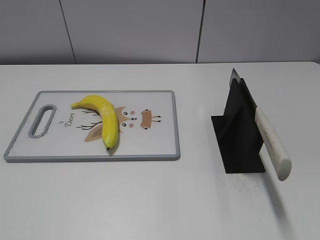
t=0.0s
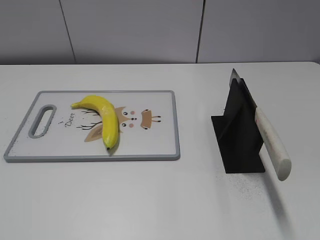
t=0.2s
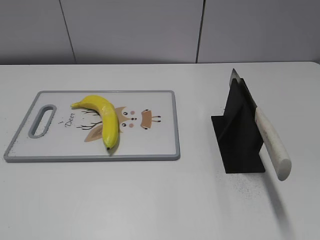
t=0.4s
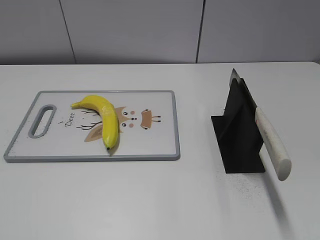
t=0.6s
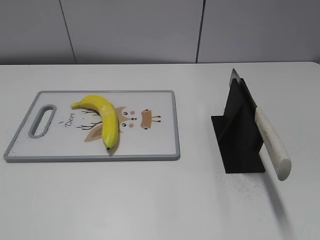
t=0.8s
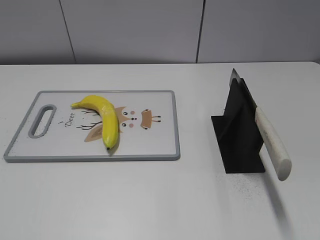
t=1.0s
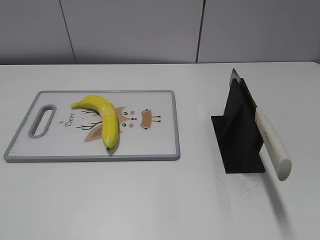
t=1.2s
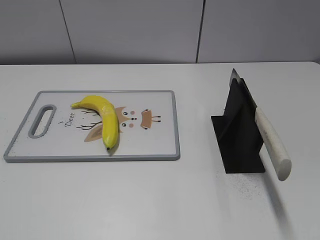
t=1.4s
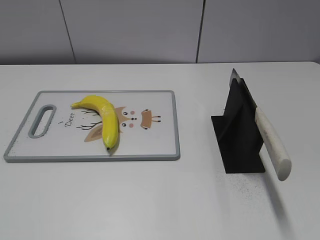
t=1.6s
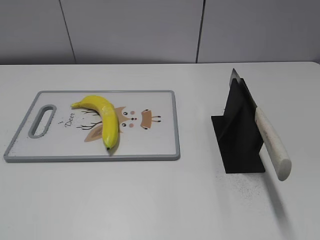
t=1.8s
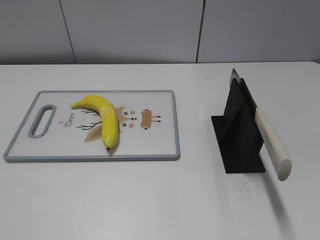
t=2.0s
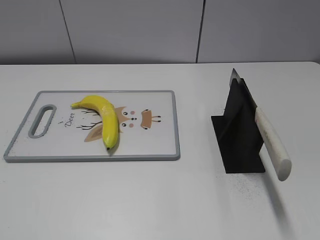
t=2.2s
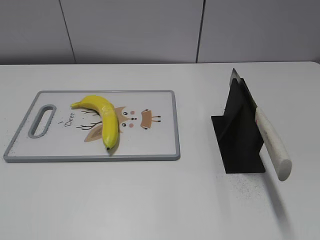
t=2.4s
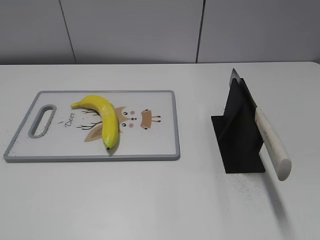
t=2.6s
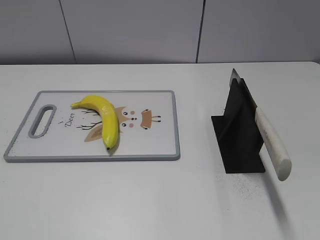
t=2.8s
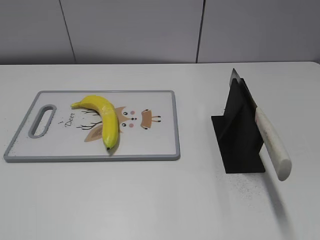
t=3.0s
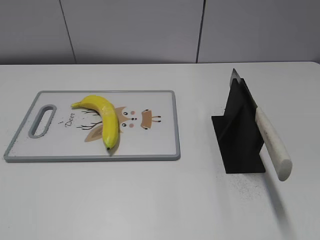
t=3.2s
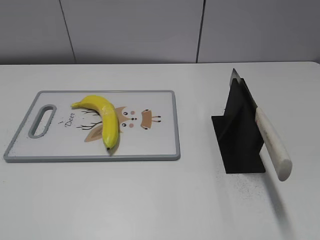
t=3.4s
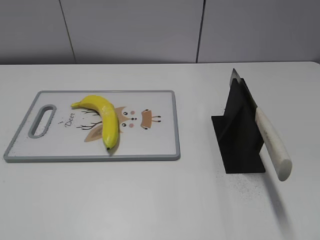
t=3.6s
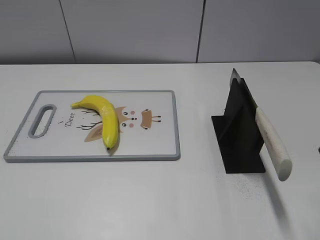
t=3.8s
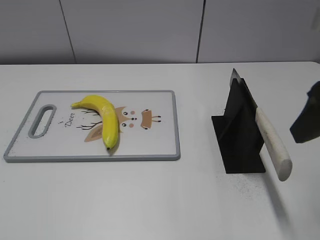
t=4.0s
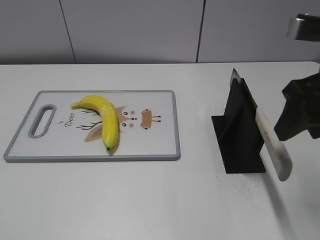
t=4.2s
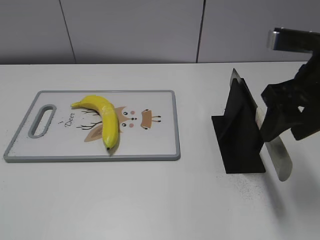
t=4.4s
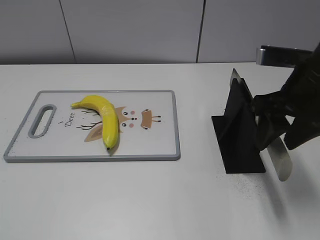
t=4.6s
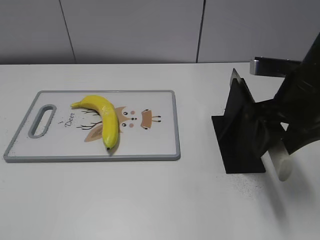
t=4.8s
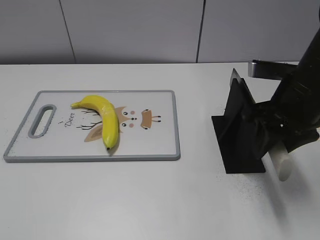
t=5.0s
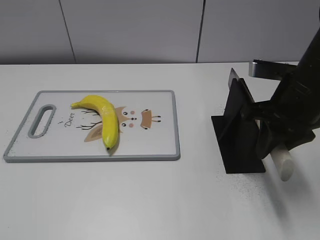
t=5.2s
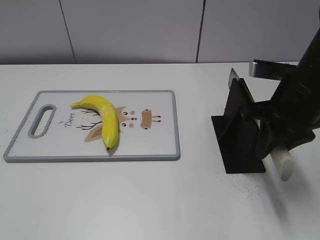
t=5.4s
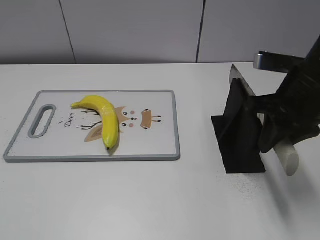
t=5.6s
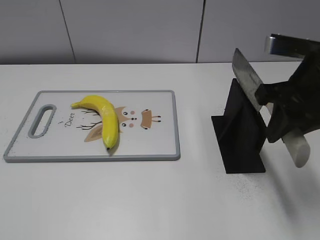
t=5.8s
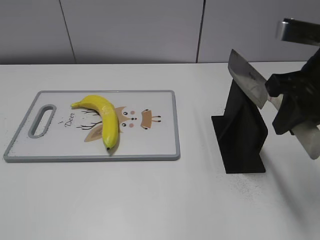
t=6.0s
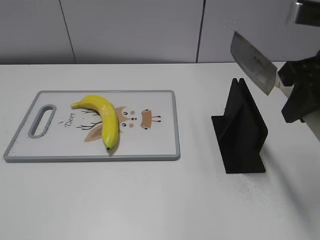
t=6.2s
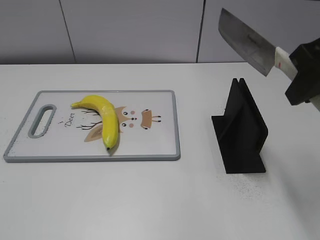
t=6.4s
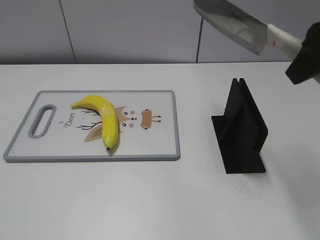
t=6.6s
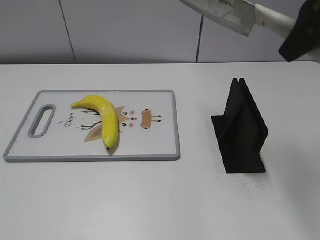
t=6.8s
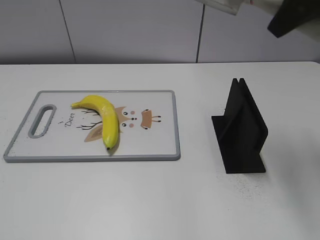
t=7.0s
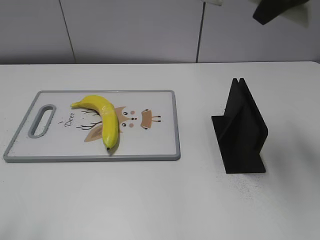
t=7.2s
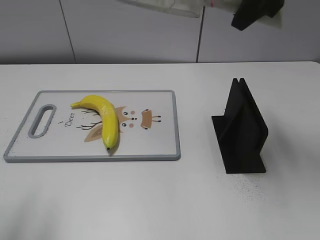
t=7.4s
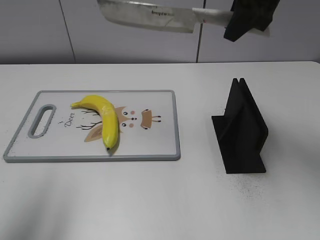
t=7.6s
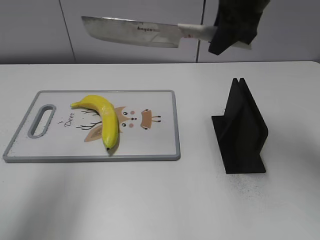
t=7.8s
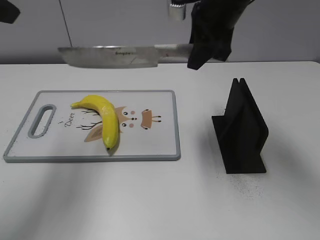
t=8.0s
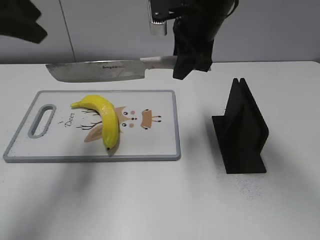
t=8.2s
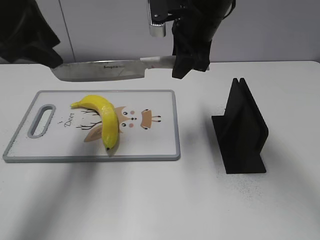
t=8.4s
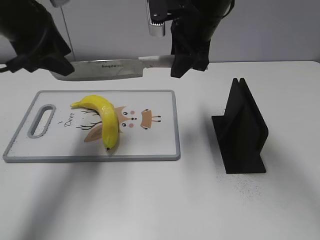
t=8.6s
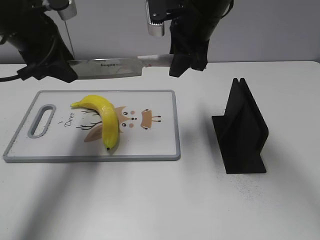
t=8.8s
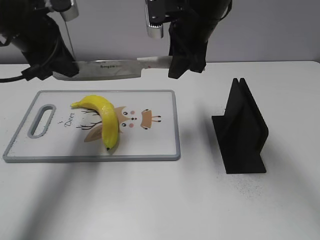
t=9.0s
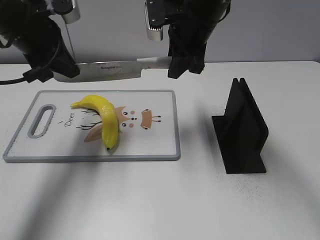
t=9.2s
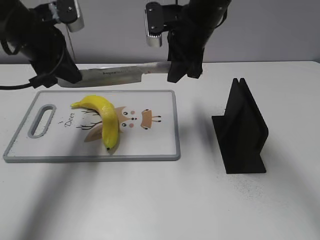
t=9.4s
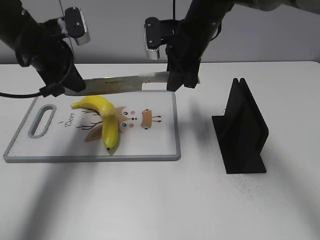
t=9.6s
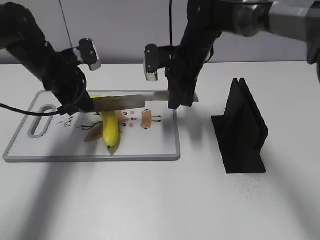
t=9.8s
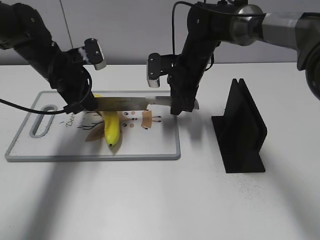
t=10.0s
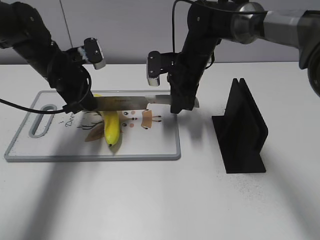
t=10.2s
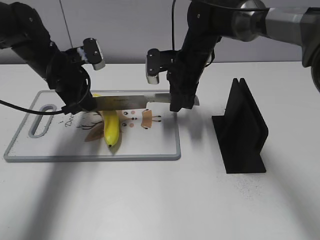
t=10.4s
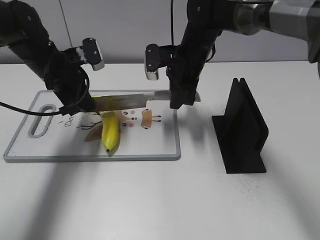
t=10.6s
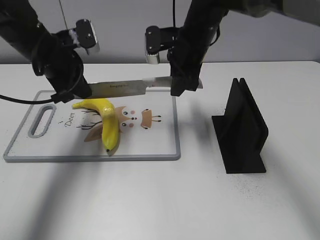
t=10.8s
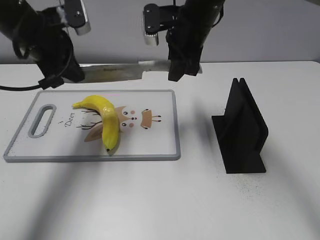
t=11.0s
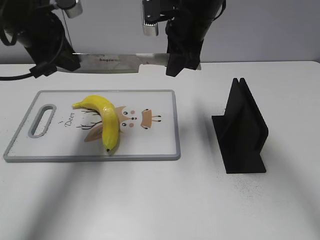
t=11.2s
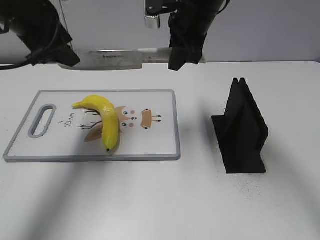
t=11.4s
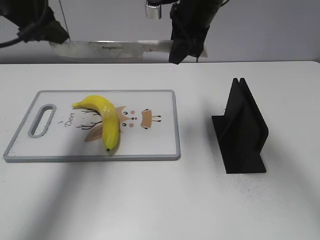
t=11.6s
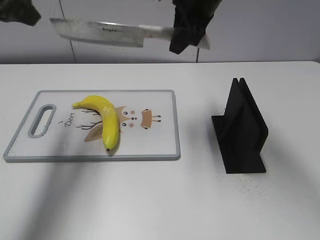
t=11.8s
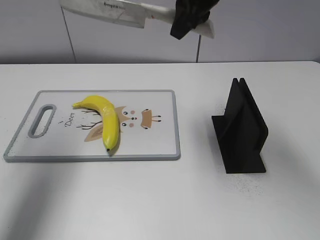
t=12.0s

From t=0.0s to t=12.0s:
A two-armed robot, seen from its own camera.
Task of the whole recording: cut plastic banana.
Step, from t=0.0s to t=6.2s: Grab the knife handle with your right hand.
Step, from t=6.4s to t=11.2s: Lift the knife with your right hand.
From t=3.0s to t=4.4s: The right gripper is displaced forward and to the left by about 25 cm.
From t=4.4s to t=6.0s: The right gripper closes up.
From t=6.0s to t=7.6s: Both grippers travel together forward and upward, approximately 20 cm.
From t=7.6s to t=9.0s: The right gripper shifts about 10 cm to the left and downward. The left gripper shifts roughly 25 cm forward, downward and to the right, and closes up.
From t=9.0s to t=10.4s: Both grippers travel together downward, some 10 cm.
From t=10.4s to t=12.0s: The left gripper shifts approximately 25 cm upward, backward and to the left, and opens up. Meanwhile the right gripper travels upward by approximately 20 cm.

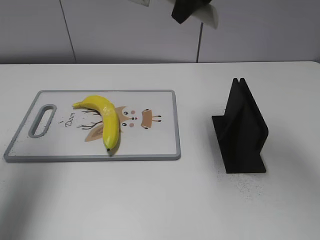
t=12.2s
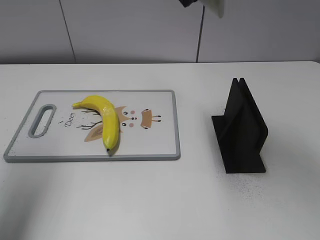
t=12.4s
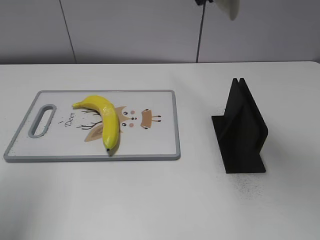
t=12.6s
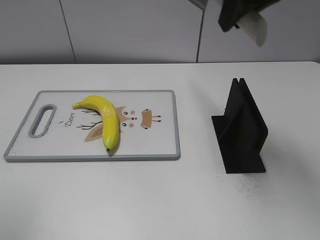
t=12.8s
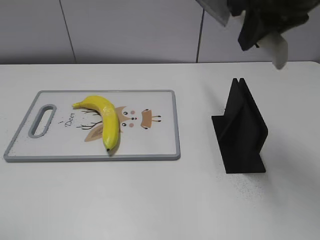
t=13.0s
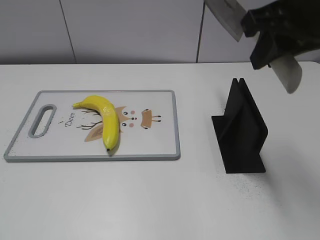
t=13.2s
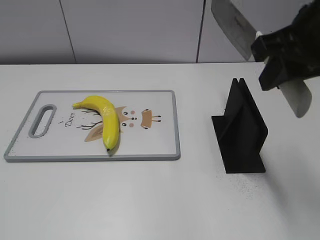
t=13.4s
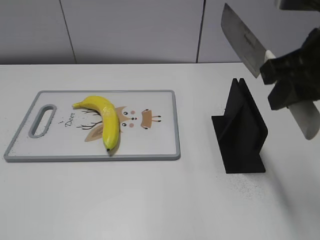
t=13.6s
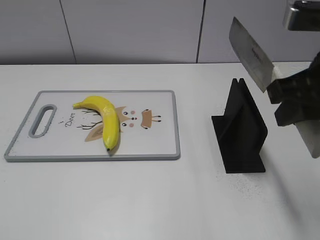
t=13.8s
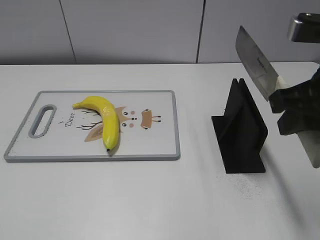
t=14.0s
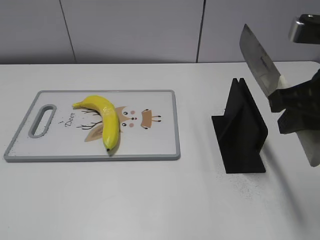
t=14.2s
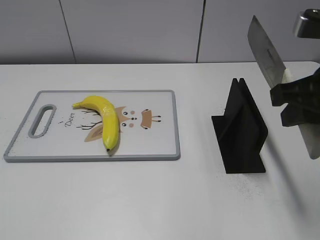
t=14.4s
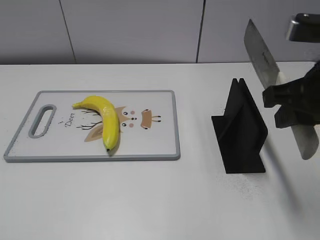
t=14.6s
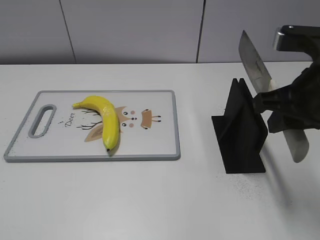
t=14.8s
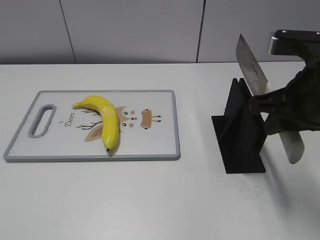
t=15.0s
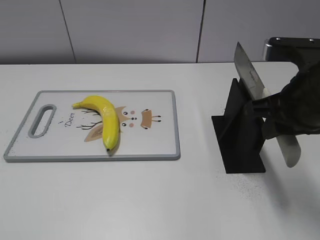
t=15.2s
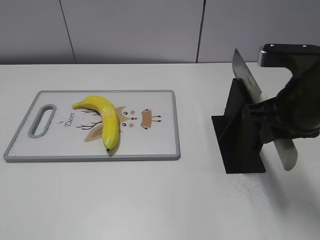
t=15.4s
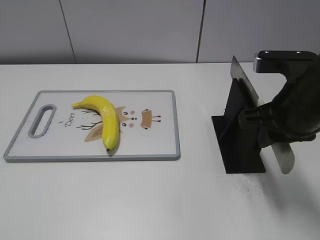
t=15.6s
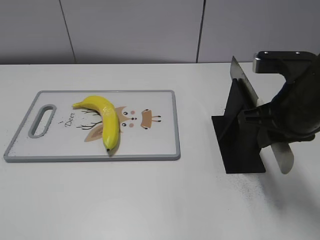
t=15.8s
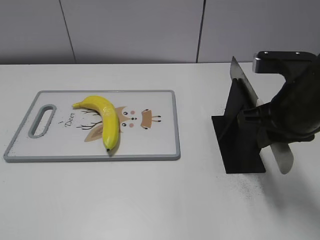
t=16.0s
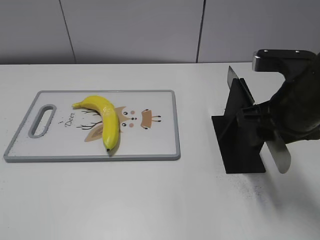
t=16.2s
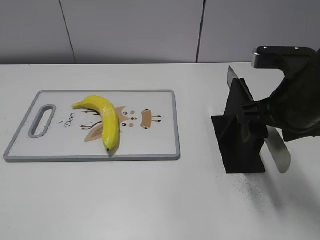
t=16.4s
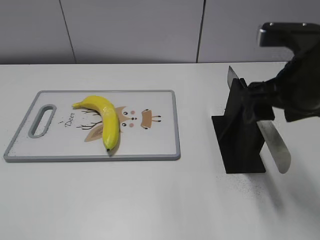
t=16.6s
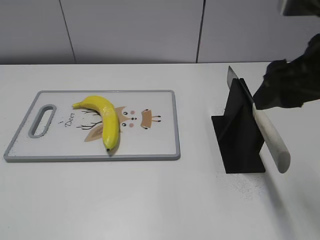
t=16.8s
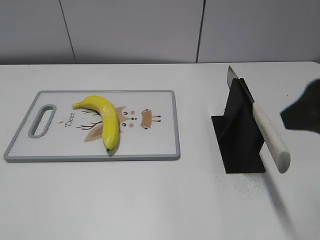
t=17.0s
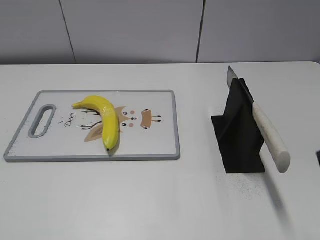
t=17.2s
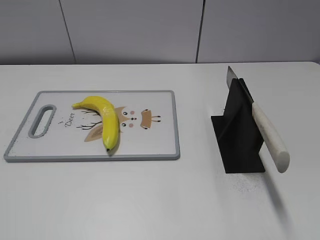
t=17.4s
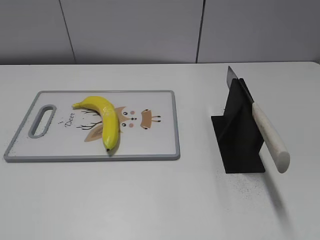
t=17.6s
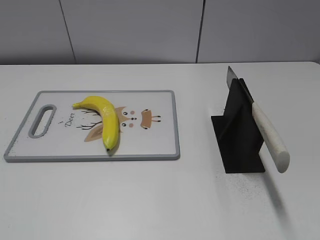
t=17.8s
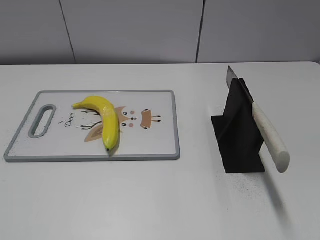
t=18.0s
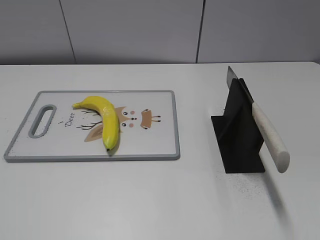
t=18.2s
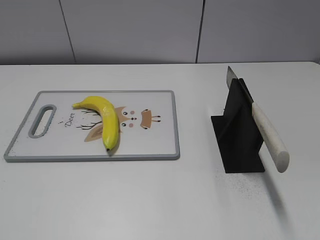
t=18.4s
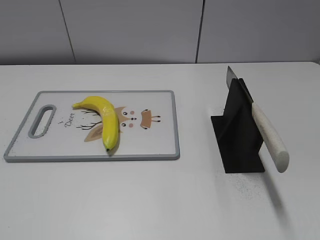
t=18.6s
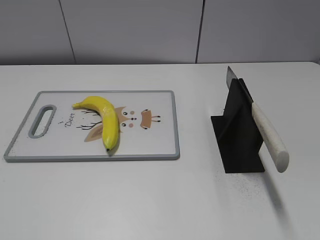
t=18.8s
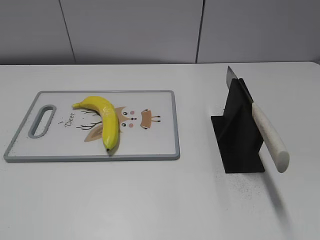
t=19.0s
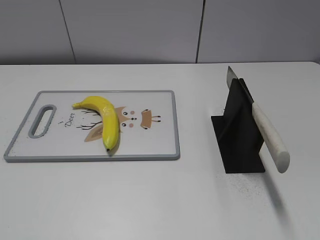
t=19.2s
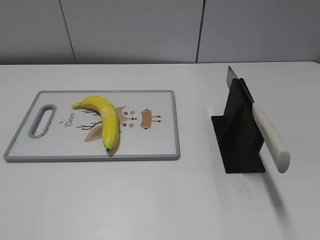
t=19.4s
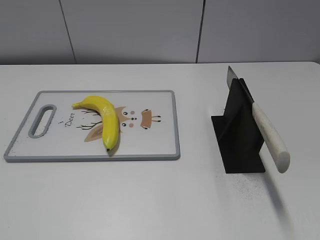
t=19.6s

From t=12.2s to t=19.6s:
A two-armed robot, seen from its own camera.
Task of the whole recording: cut plastic banana.
Step, from t=13.0s to t=13.8s: Secure the blade with your left hand.
Step, from t=14.0s to t=19.6s: Place the knife on the storage rack with your right hand.
From t=12.2s to t=13.6s: The right gripper shifts roughly 20 cm backward and to the right. Meanwhile the left gripper shifts approximately 30 cm backward.
From t=13.6s to t=15.2s: The right gripper heads downward, covering approximately 5 cm.
From t=15.2s to t=16.6s: The right gripper opens its fingers.
From t=16.6s to t=18.2s: The right gripper shifts approximately 30 cm backward and to the right.

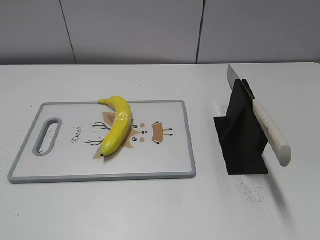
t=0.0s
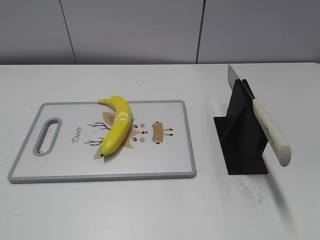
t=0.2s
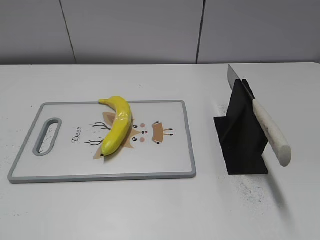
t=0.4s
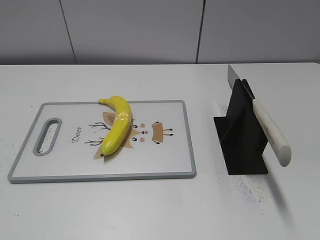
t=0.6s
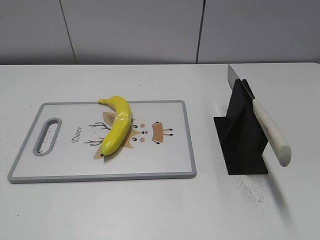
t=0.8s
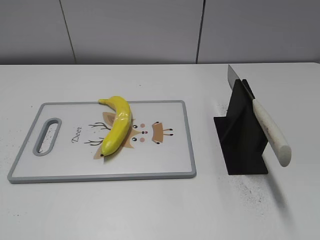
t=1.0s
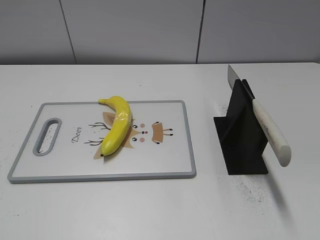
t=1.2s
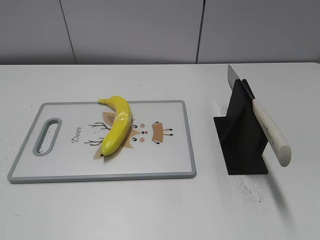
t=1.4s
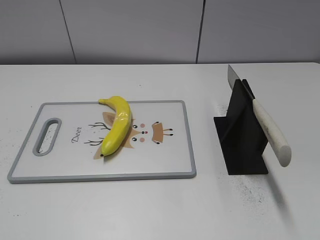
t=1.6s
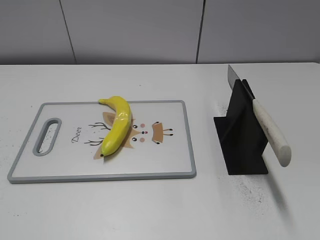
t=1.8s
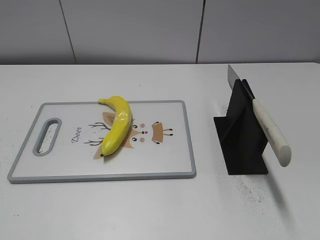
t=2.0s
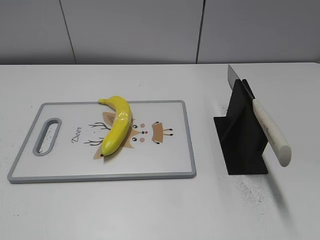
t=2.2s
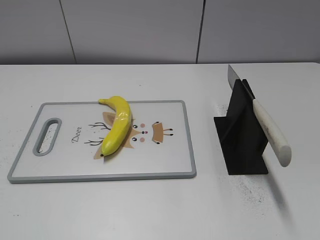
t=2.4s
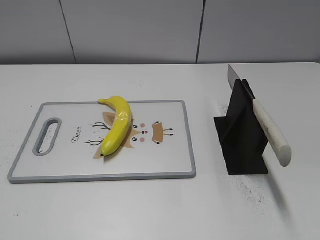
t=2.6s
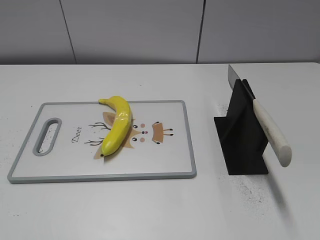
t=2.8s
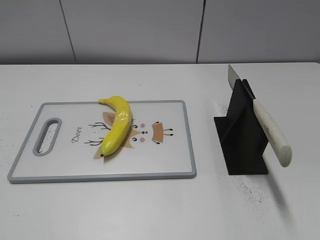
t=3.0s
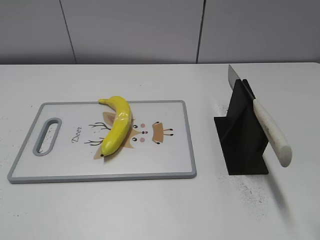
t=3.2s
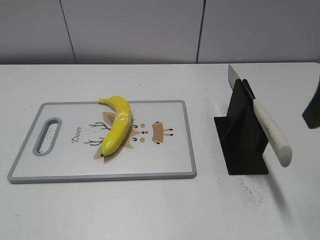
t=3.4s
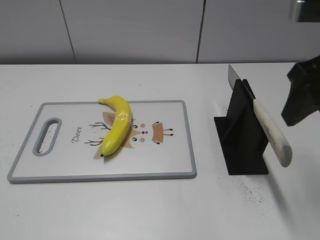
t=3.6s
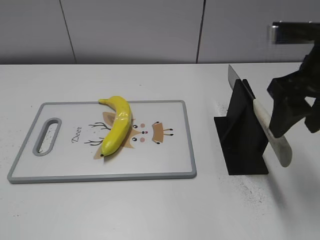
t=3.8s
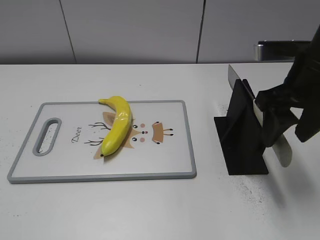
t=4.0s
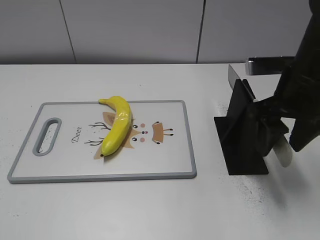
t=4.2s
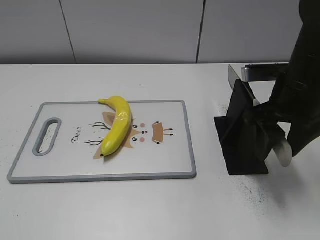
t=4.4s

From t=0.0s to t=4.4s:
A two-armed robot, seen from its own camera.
Task of the whole recording: cut plastic banana.
From t=3.0s to t=4.4s: The right gripper moves forward, downward and to the left, approximately 20 cm.
